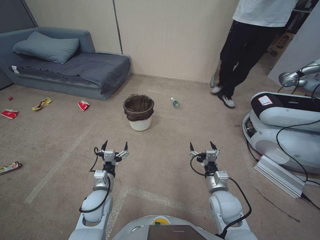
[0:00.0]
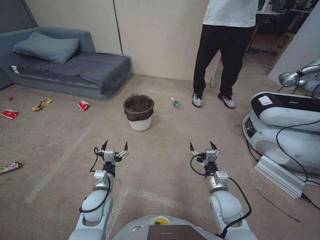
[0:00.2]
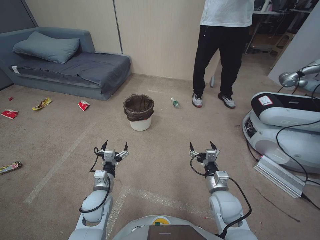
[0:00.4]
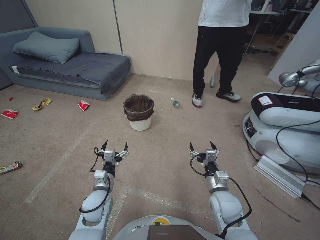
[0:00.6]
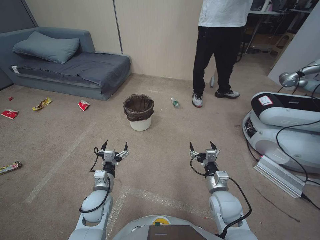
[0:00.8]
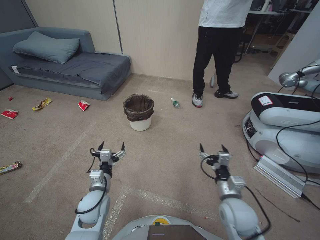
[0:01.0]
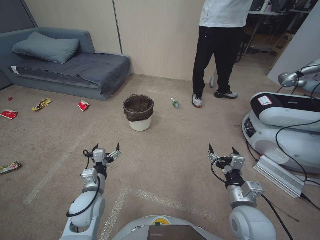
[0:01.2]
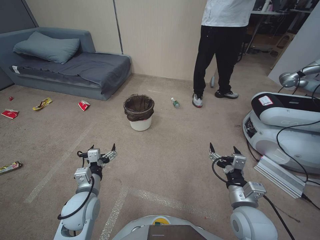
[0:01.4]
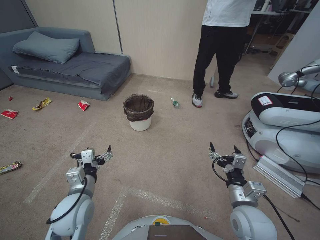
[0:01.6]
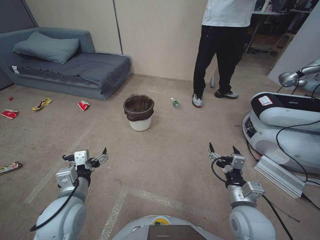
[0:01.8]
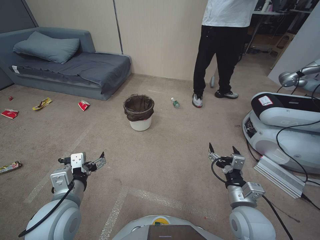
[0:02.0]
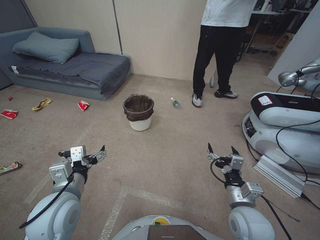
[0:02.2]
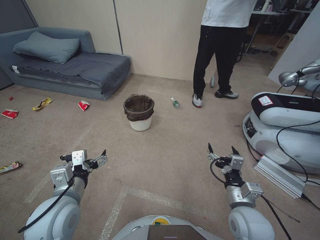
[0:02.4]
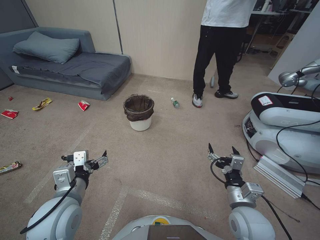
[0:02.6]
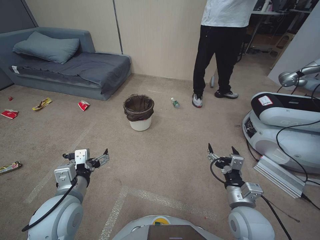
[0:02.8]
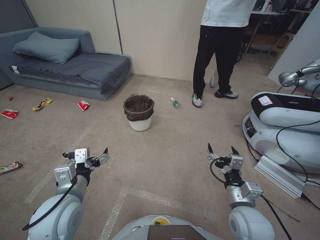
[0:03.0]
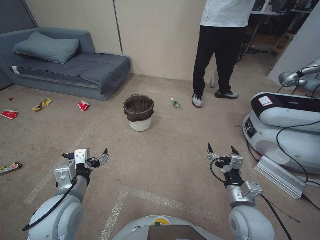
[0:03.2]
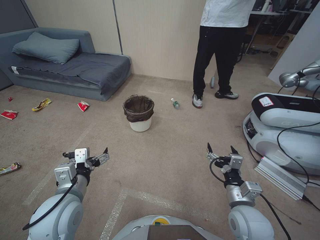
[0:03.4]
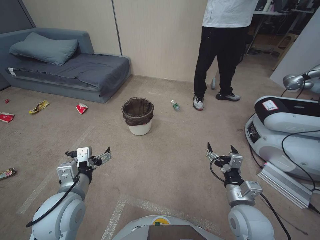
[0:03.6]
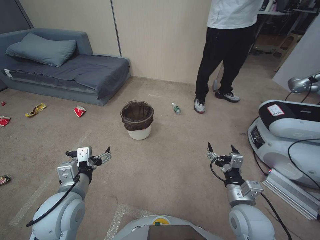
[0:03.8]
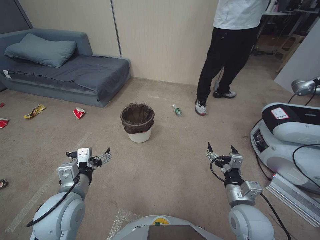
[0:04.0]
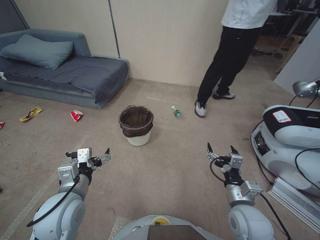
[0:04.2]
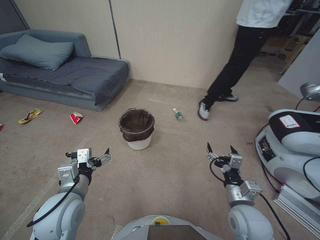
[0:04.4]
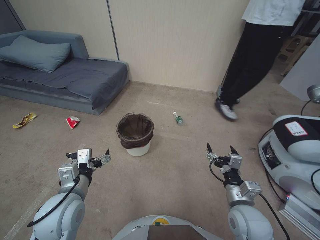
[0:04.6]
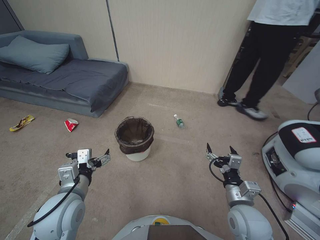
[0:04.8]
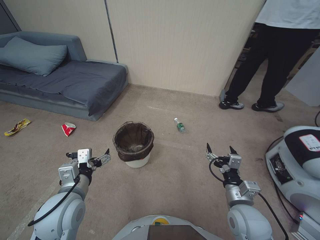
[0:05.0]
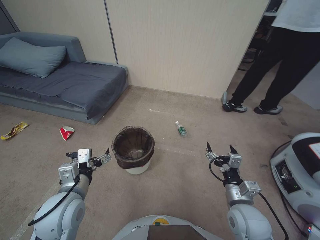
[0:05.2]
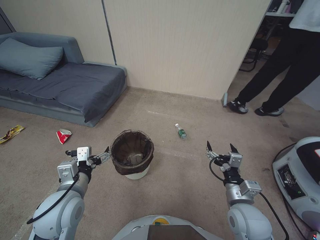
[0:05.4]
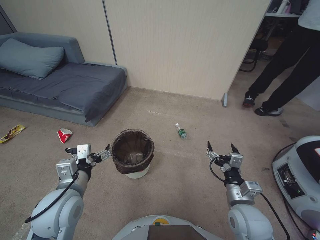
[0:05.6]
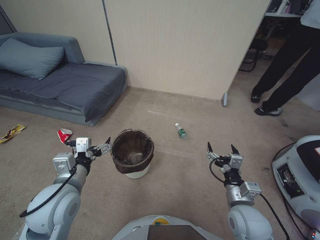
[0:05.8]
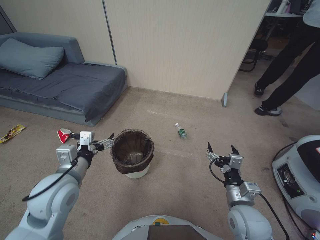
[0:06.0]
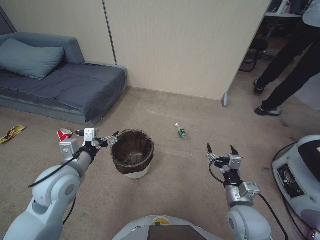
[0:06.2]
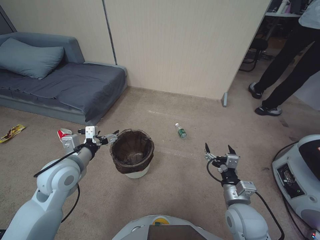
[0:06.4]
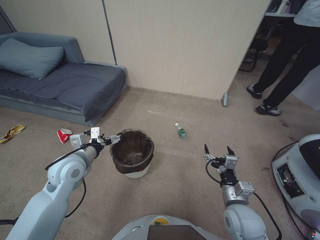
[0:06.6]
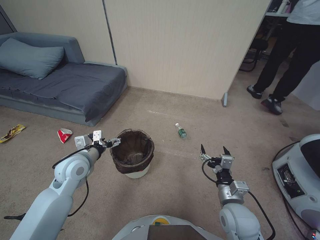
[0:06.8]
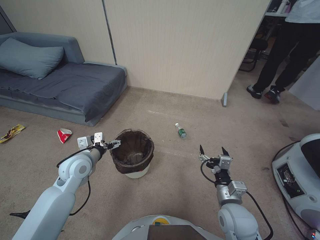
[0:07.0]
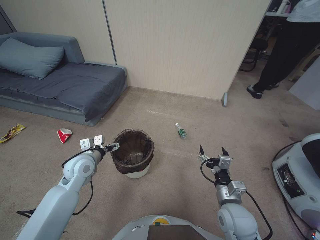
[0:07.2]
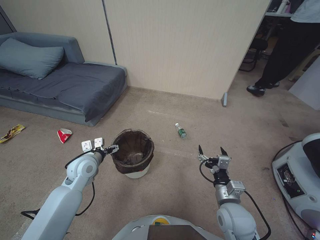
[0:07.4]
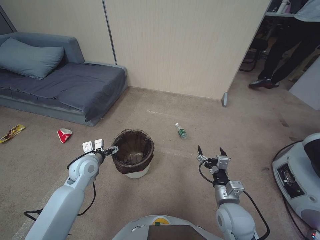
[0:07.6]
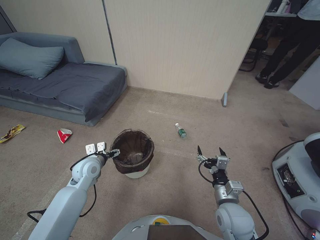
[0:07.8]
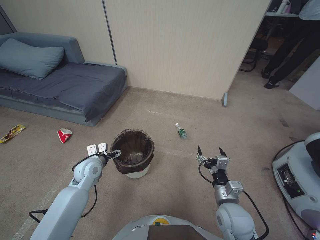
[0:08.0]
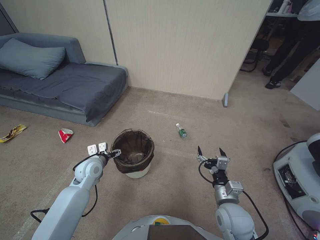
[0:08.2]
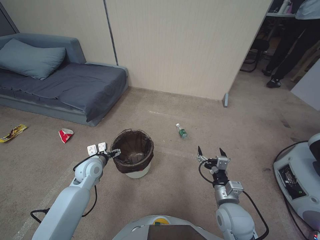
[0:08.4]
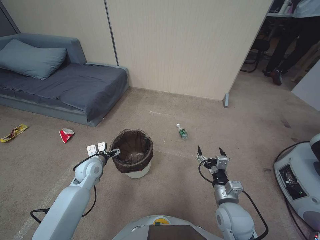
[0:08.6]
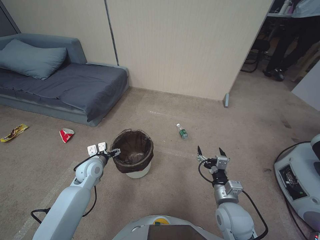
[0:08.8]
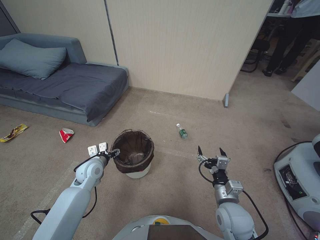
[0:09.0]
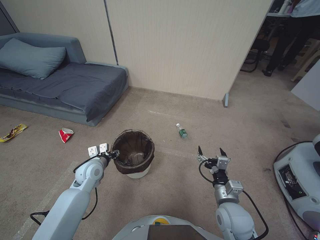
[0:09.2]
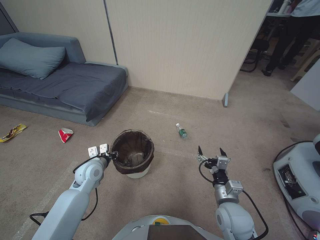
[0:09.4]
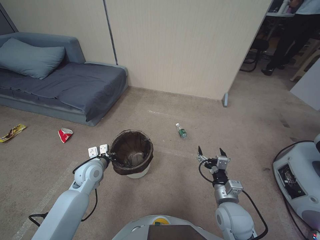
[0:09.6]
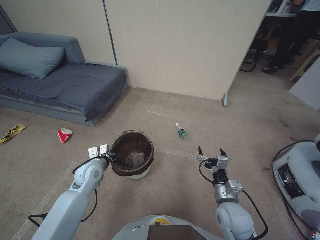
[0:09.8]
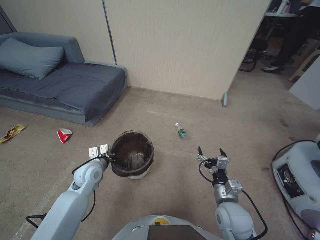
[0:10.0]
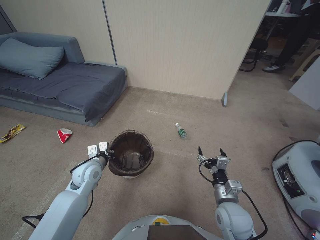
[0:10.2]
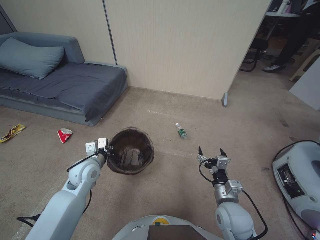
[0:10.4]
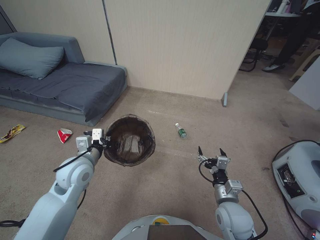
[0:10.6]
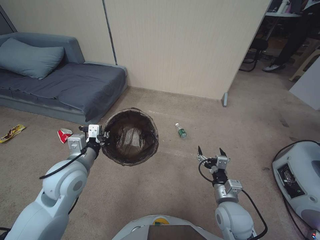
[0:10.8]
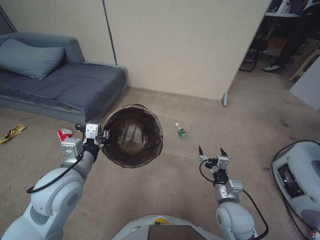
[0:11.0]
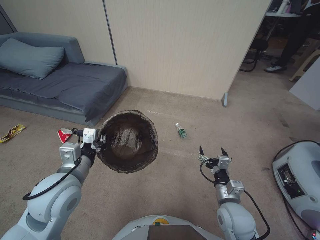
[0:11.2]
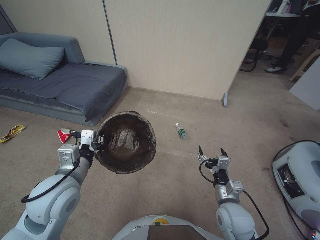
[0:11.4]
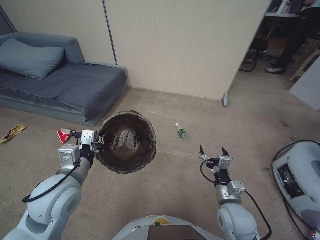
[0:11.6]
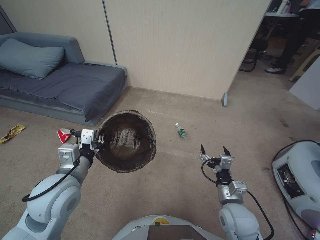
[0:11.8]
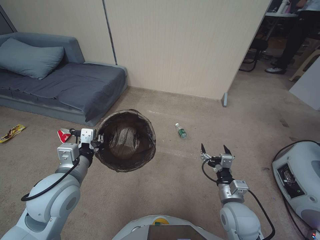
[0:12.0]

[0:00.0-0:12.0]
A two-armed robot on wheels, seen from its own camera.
Task of the whole recording: Pick up the trash bin, then pick up the garbage from the floor and place it into the trash bin.
0:01.6 to 0:03.0: The left gripper heads upward, covering some 5 cm.
0:06.0 to 0:07.6: The left gripper shifts about 15 cm forward and downward.
0:07.6 to 0:09.0: The left gripper shifts some 5 cm downward.
0:09.0 to 0:10.4: The left gripper shifts by roughly 5 cm, and closes its fingers.
0:10.4 to 0:12.0: The left gripper shifts approximately 15 cm upward and backward.

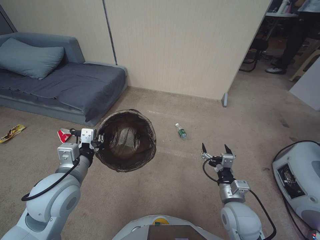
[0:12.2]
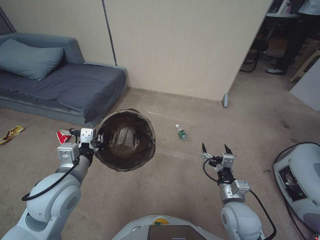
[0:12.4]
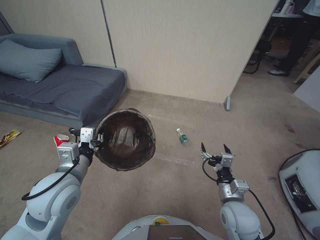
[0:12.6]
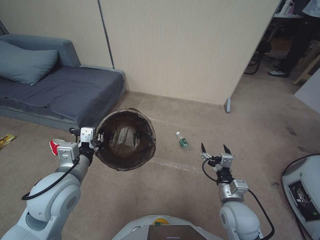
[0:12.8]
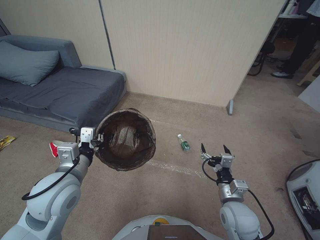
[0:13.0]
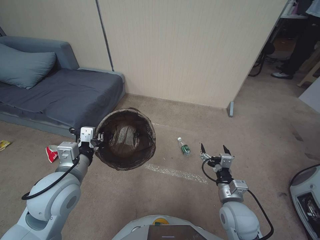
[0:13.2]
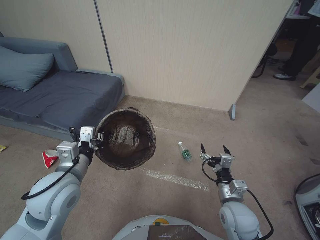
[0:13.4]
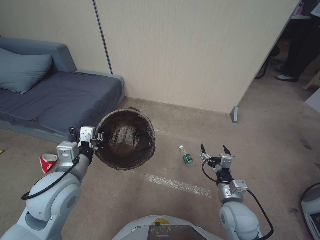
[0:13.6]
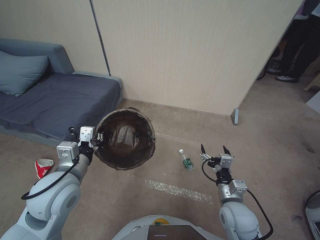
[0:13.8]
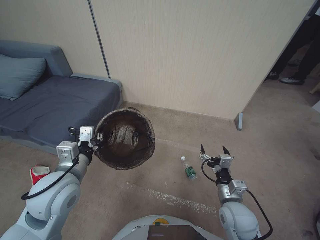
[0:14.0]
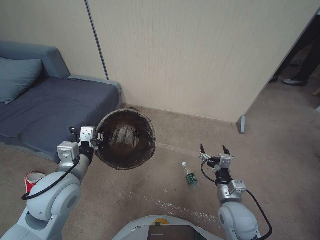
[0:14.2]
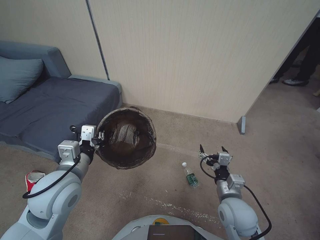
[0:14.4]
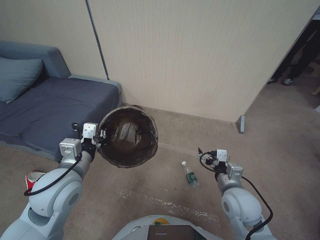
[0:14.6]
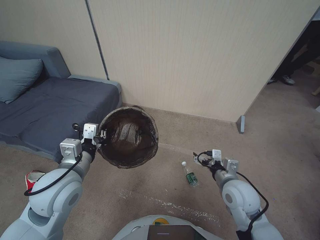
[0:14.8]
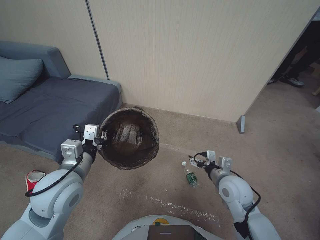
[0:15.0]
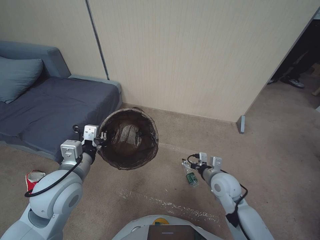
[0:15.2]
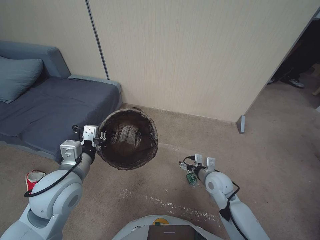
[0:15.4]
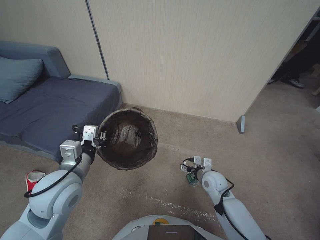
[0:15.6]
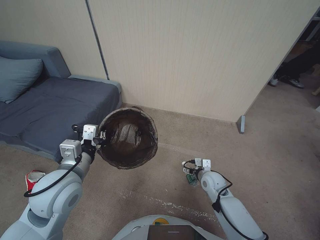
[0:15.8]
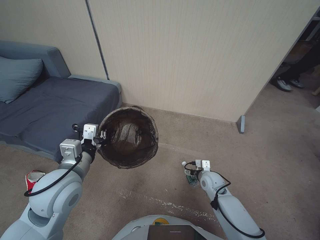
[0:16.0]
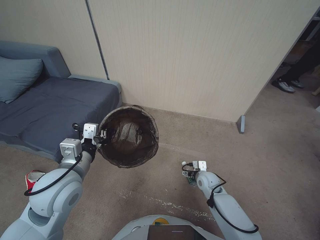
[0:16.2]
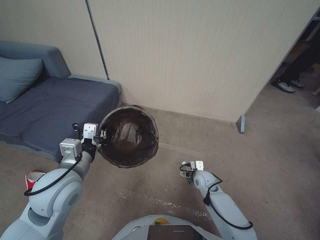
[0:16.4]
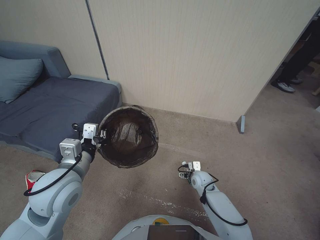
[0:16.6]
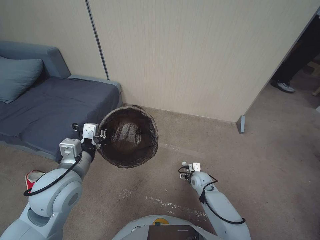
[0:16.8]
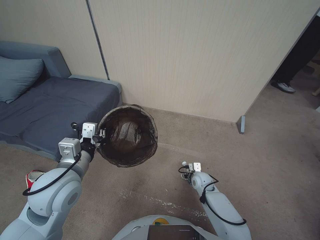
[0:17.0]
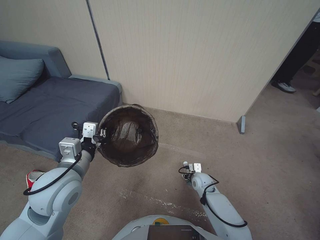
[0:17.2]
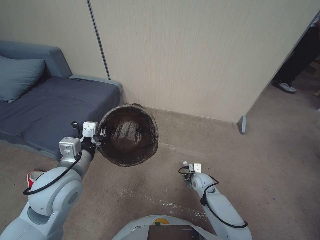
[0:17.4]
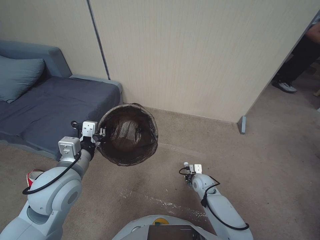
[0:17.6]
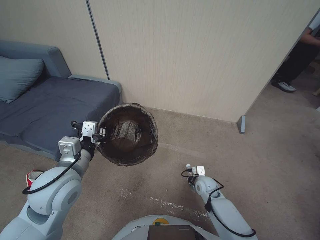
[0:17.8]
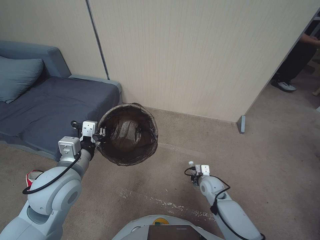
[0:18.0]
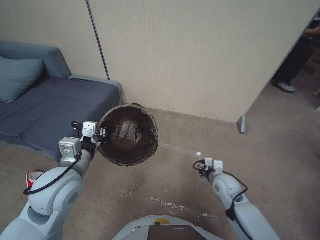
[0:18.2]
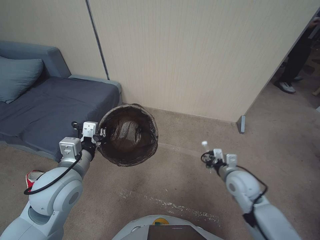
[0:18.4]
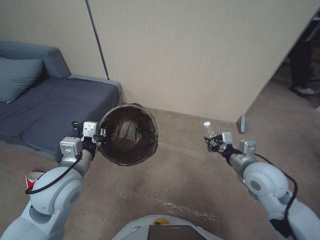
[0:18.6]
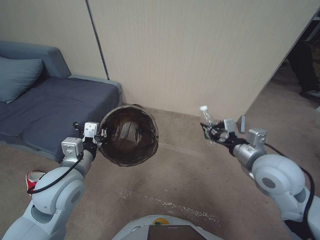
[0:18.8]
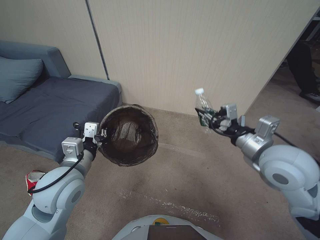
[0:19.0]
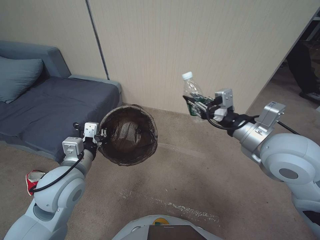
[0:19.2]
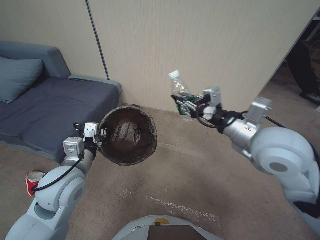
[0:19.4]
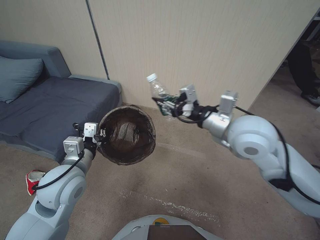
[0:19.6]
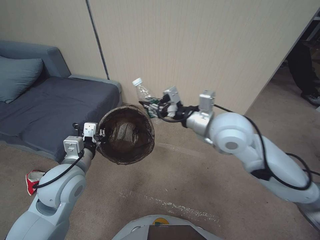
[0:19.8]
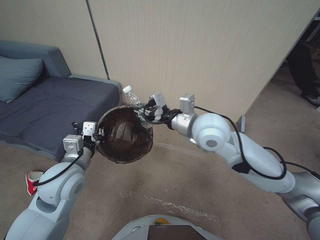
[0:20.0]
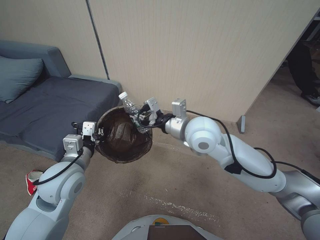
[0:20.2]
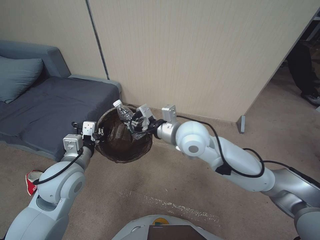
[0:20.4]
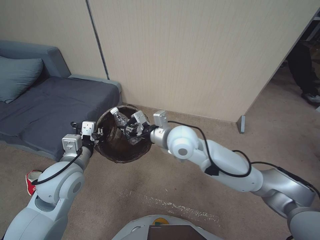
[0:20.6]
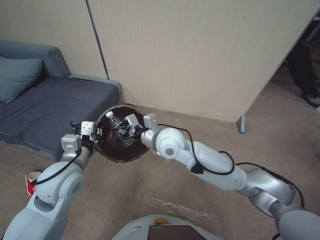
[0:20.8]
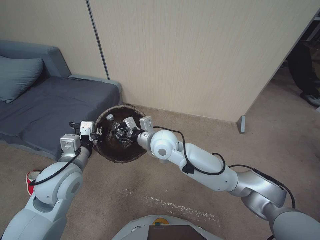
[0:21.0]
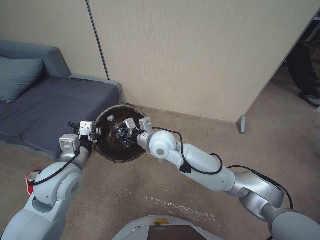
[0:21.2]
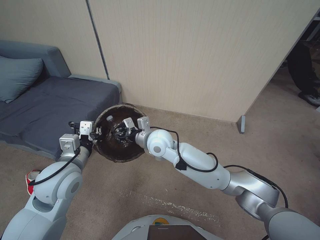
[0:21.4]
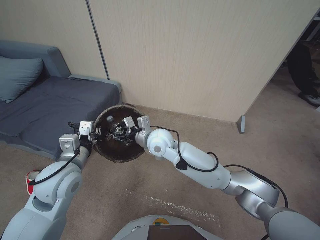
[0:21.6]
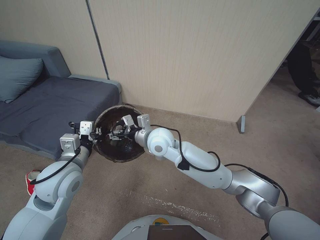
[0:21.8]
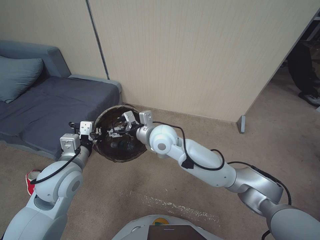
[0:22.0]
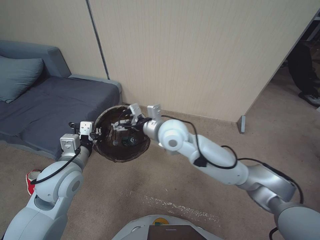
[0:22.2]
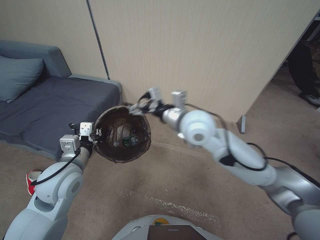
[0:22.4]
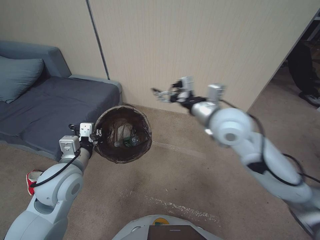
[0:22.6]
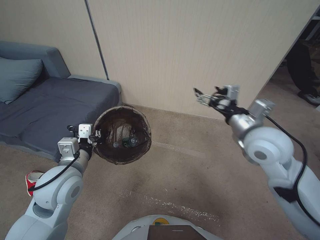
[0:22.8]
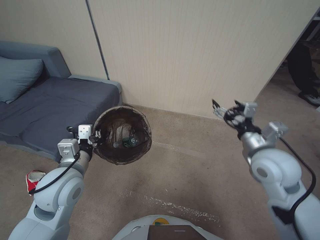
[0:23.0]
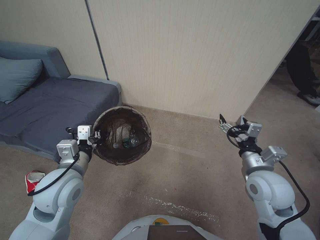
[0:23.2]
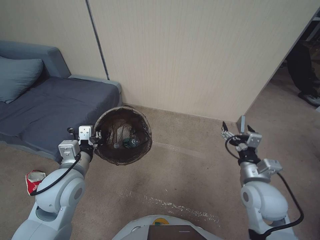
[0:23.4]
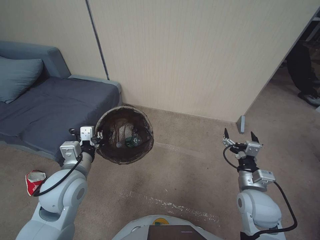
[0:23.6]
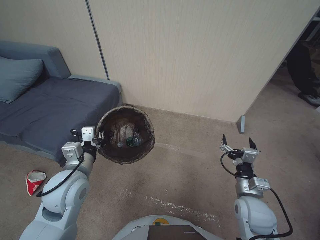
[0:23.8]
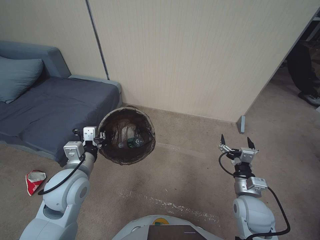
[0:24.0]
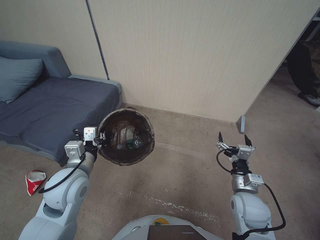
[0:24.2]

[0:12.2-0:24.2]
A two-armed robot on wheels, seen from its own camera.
Task of the whole recording: Pick up the trash bin, then pick up the garbage from the floor and place it into the trash bin.
0:13.8 to 0:15.2: The right gripper goes about 10 cm forward.
0:15.2 to 0:16.6: The right gripper heads downward and forward, covering about 15 cm.
0:16.6 to 0:18.2: The right gripper is displaced upward by about 5 cm, and closes up.
0:18.2 to 0:19.8: The right gripper heads upward, covering roughly 35 cm.
0:19.8 to 0:21.2: The right gripper heads to the left and downward, covering approximately 20 cm.
0:21.2 to 0:22.6: The right gripper travels upward and to the right by some 15 cm, and opens.
0:22.6 to 0:24.2: The right gripper shifts some 35 cm downward, to the right and backward.
